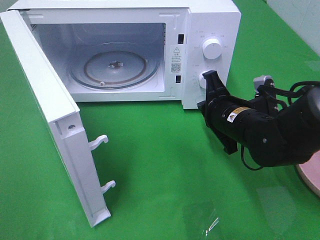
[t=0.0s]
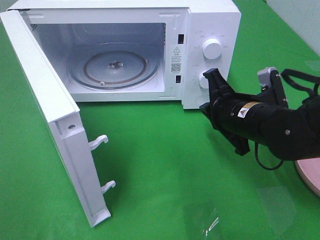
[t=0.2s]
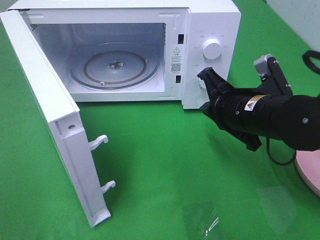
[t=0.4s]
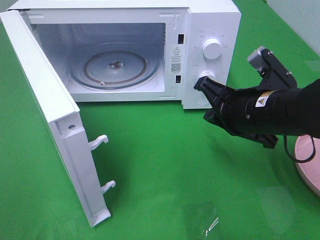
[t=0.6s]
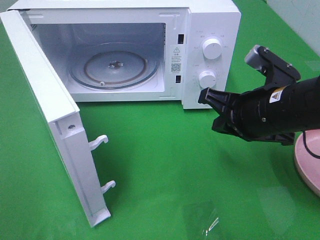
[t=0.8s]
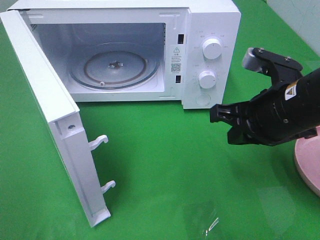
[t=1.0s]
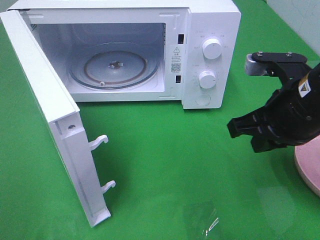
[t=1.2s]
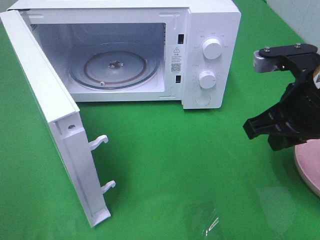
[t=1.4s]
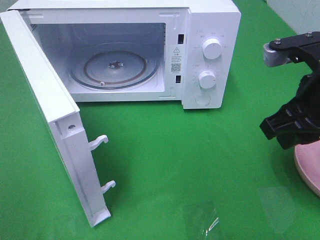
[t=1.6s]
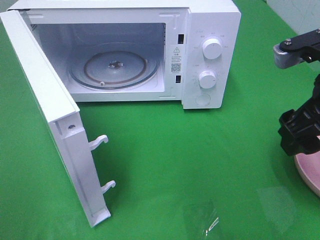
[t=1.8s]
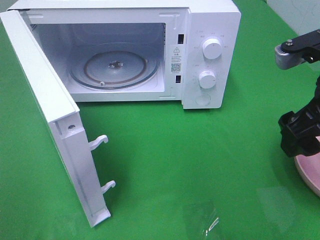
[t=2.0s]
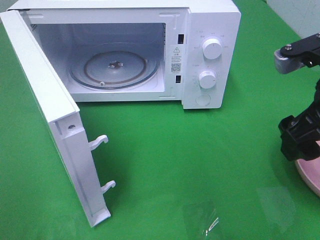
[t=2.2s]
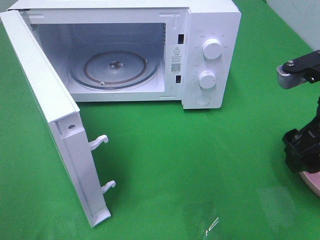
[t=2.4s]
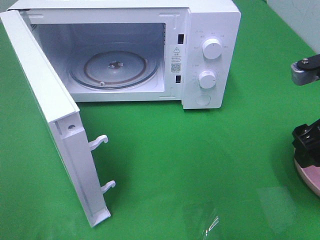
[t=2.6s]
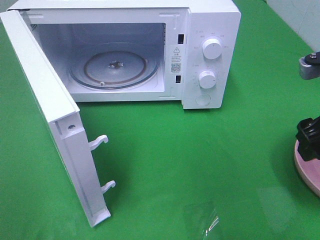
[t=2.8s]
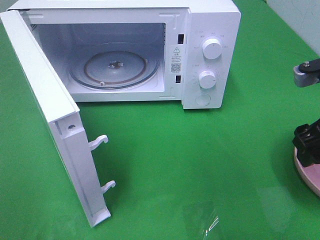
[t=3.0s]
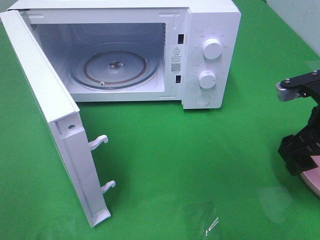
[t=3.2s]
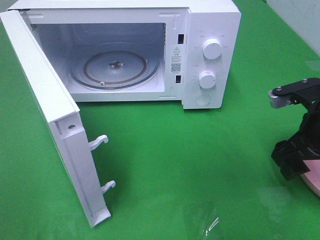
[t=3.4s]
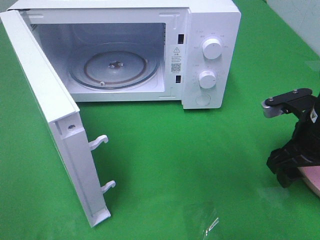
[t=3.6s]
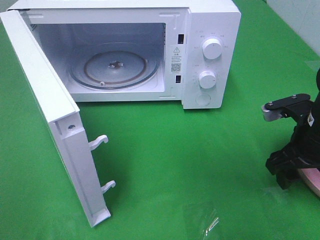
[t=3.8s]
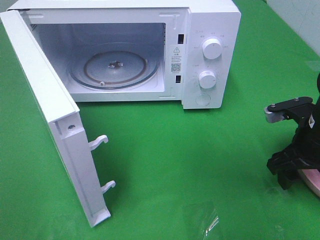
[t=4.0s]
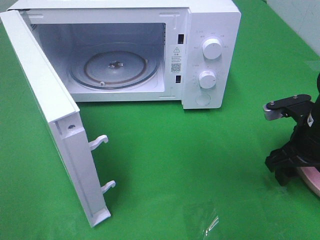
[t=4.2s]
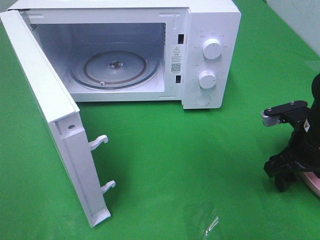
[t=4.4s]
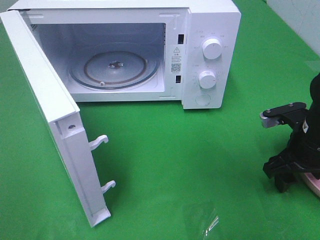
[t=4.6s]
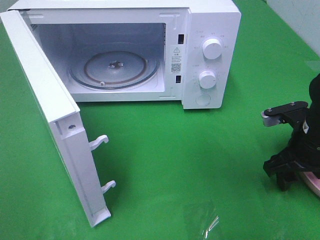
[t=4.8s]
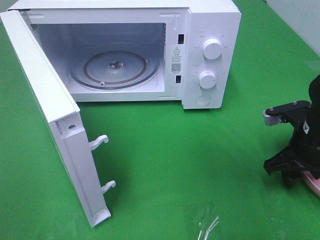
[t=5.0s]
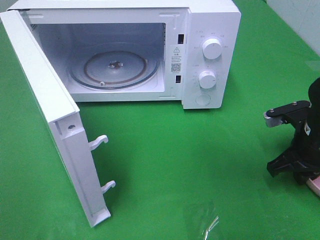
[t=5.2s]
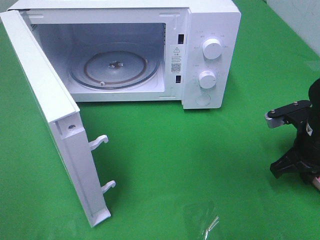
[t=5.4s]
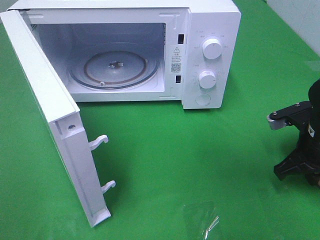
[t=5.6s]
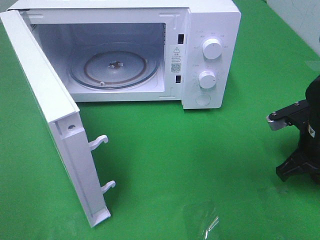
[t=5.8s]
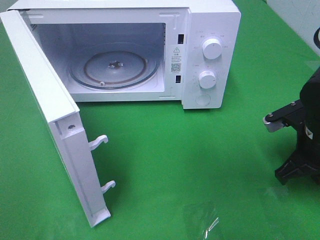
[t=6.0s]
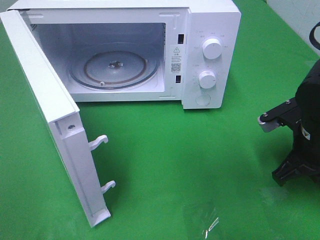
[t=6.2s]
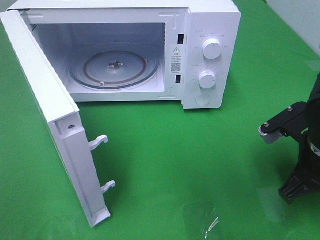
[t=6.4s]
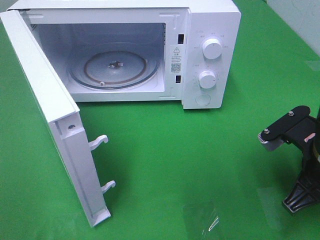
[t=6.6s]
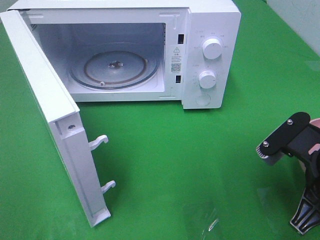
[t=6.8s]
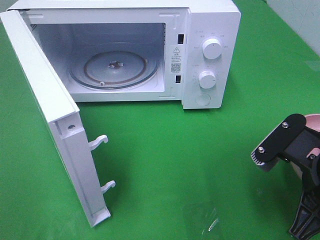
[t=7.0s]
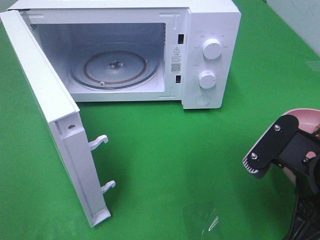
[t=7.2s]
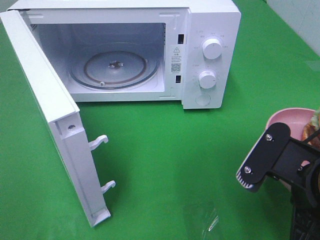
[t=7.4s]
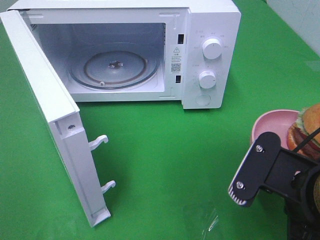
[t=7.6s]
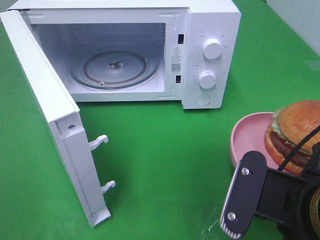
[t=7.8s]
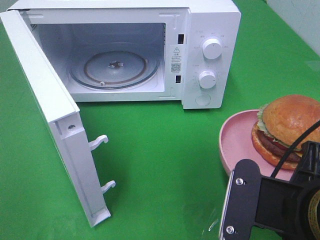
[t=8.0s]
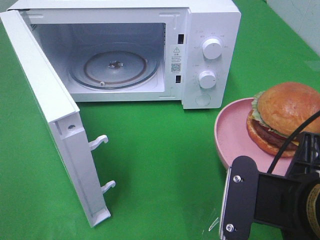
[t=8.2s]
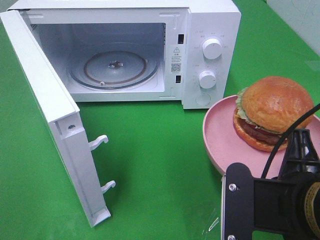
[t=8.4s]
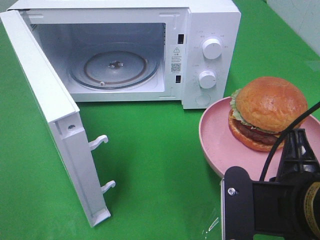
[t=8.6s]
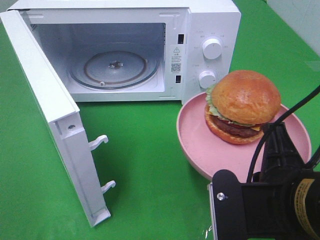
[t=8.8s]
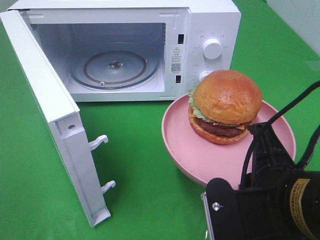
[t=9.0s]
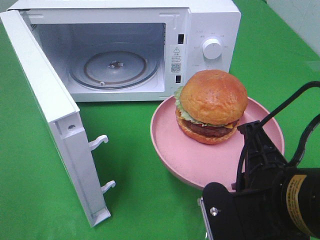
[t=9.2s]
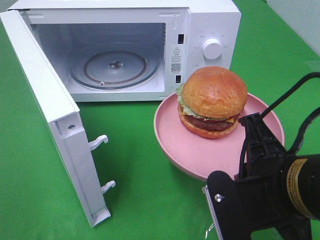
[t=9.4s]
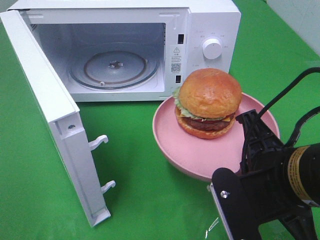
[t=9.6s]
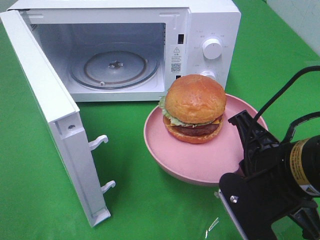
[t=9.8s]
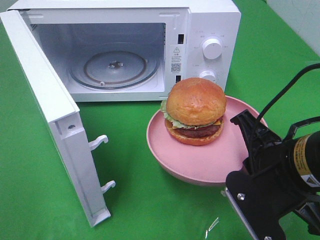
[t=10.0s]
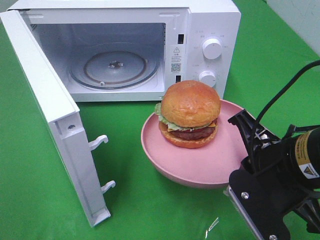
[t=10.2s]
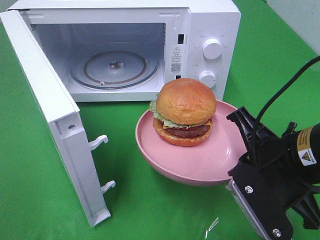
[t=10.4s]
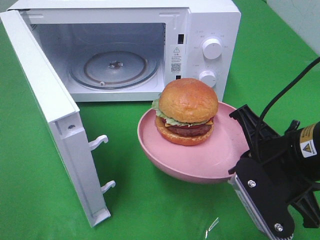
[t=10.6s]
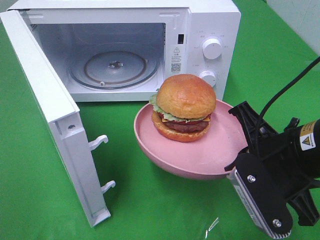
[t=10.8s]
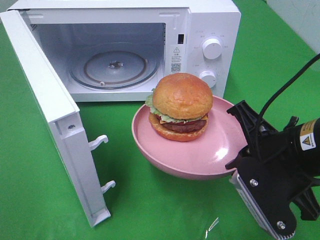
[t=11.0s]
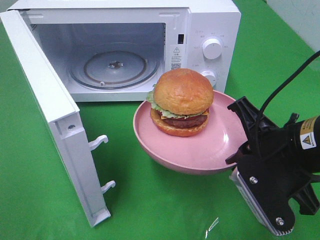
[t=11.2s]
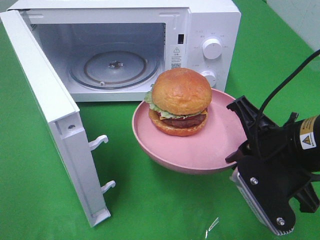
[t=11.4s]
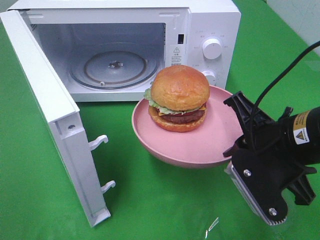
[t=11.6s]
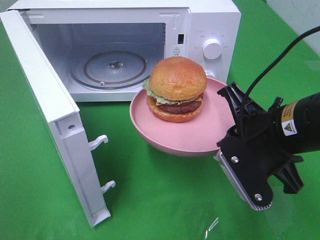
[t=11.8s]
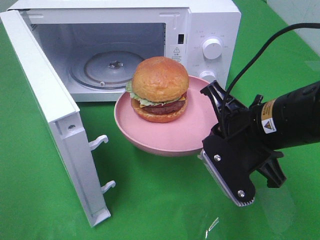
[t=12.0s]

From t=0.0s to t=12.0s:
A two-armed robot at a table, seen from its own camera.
Task of the whole recording: Heat the burger.
Step, from t=0.0s to t=5.6s: Right hand: grab the plate with the hamburger.
From t=0.0s to t=1.6s: The right gripper travels upward, backward and to the right by approximately 15 cm, and opens its fingers.
From t=1.6s to t=3.0s: The right gripper heads to the right, covering about 5 cm, and opens its fingers.
From t=3.0s to t=4.4s: The right gripper heads downward, covering roughly 10 cm.
From t=4.4s to t=6.0s: The right gripper closes its fingers.
From t=6.0s to t=7.6s: The right gripper is displaced backward, to the left and upward by some 20 cm.
From t=9.0s to t=10.4s: The right gripper is displaced forward by about 5 cm.

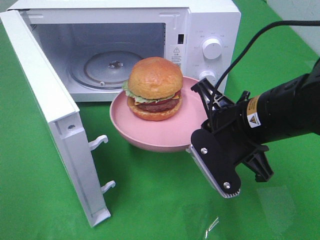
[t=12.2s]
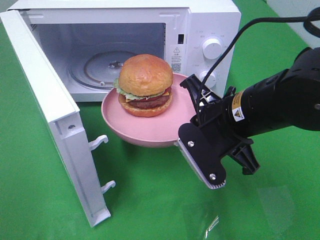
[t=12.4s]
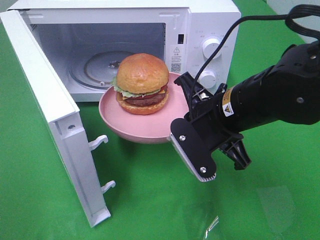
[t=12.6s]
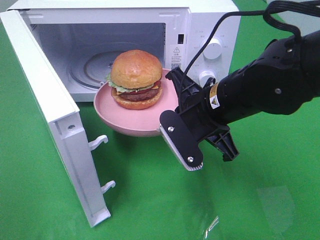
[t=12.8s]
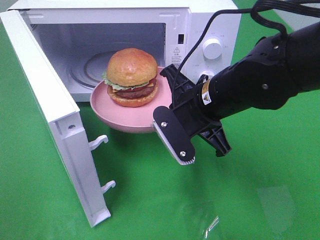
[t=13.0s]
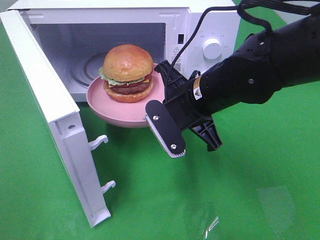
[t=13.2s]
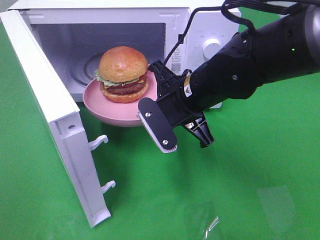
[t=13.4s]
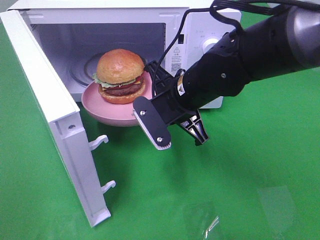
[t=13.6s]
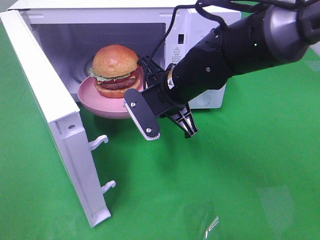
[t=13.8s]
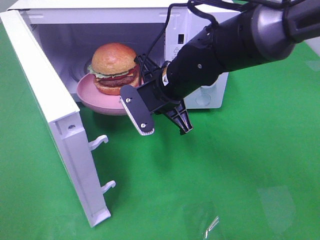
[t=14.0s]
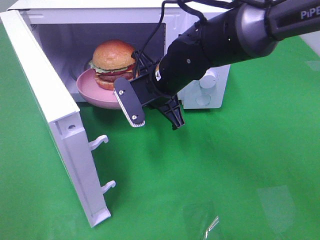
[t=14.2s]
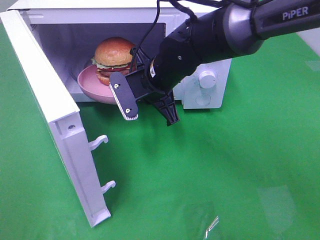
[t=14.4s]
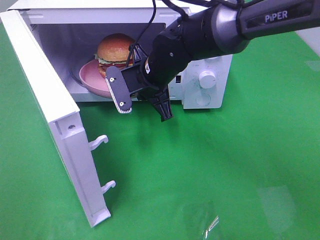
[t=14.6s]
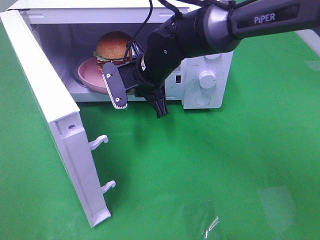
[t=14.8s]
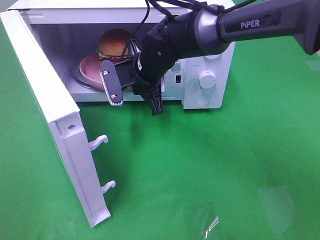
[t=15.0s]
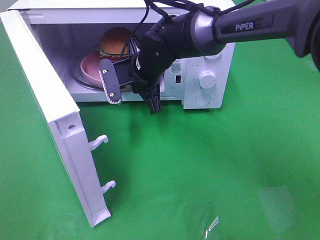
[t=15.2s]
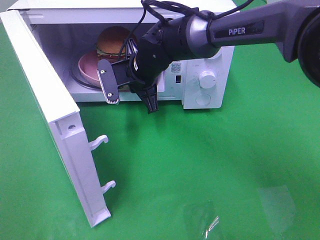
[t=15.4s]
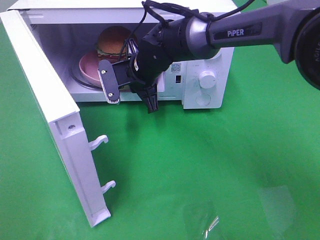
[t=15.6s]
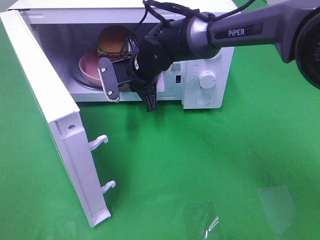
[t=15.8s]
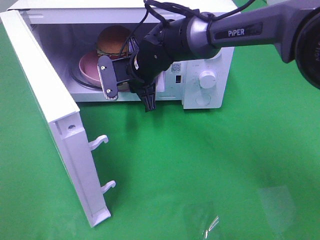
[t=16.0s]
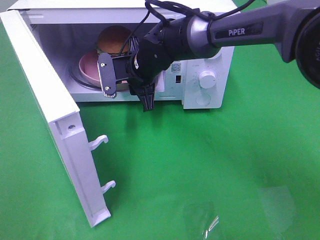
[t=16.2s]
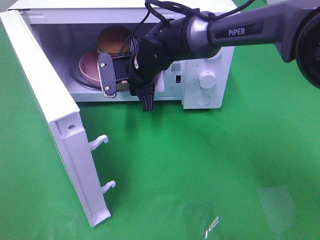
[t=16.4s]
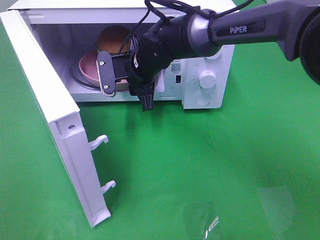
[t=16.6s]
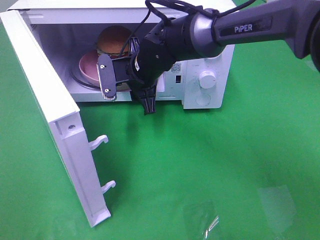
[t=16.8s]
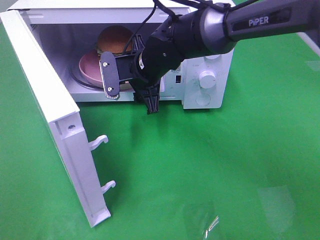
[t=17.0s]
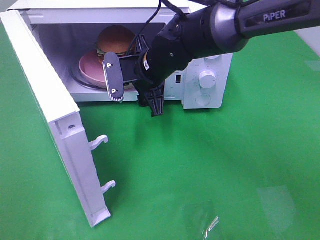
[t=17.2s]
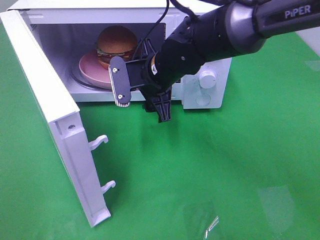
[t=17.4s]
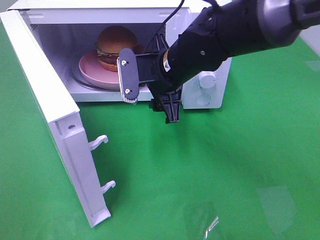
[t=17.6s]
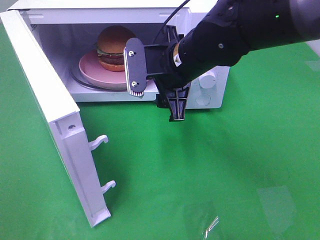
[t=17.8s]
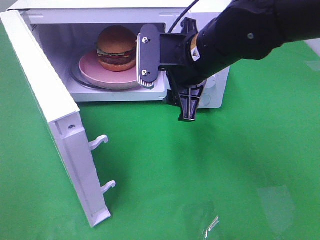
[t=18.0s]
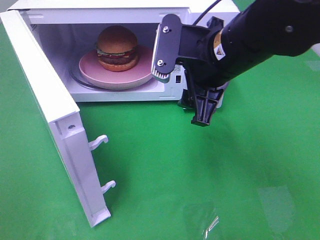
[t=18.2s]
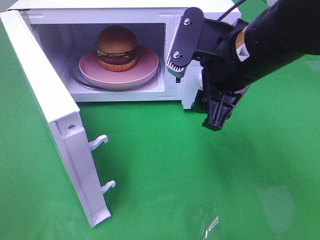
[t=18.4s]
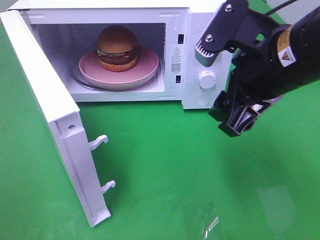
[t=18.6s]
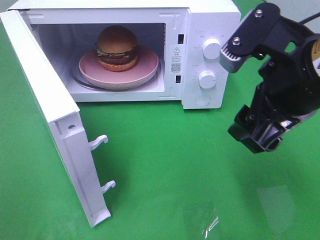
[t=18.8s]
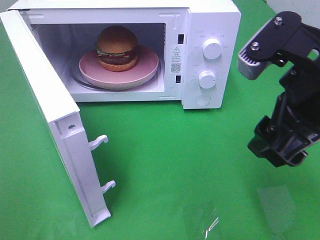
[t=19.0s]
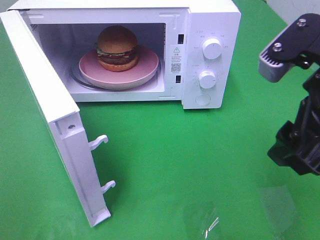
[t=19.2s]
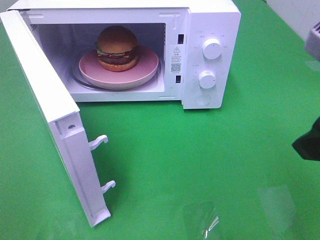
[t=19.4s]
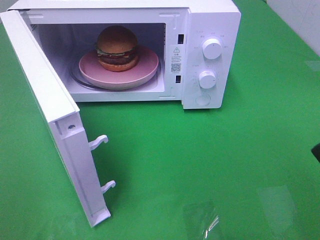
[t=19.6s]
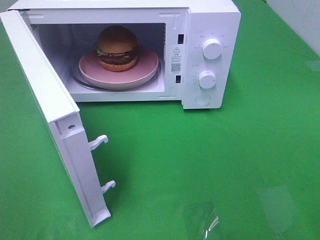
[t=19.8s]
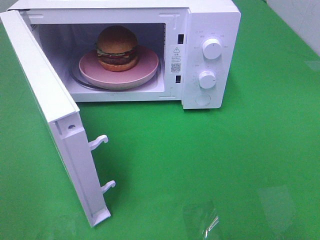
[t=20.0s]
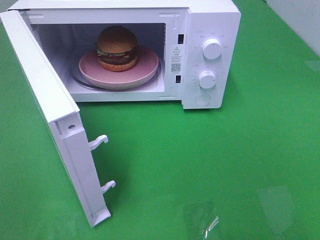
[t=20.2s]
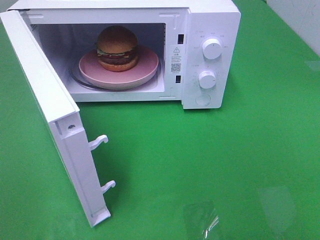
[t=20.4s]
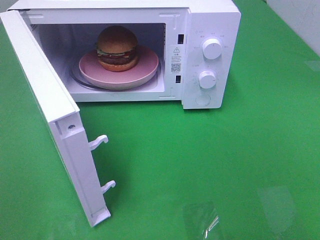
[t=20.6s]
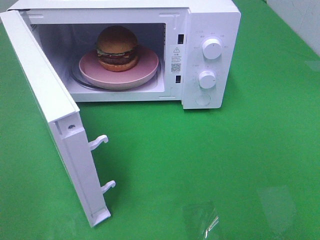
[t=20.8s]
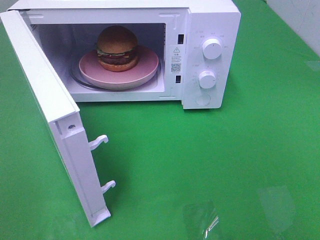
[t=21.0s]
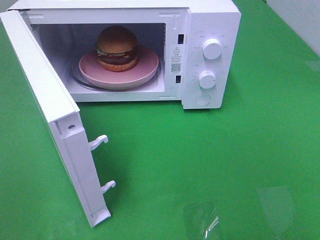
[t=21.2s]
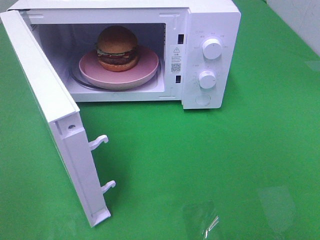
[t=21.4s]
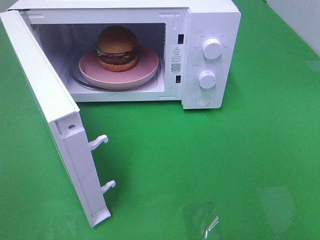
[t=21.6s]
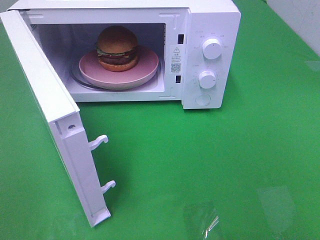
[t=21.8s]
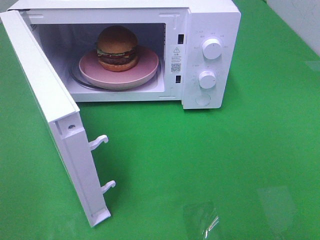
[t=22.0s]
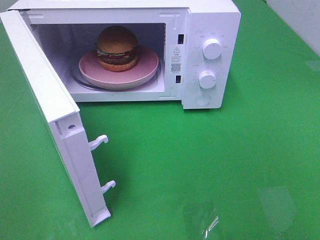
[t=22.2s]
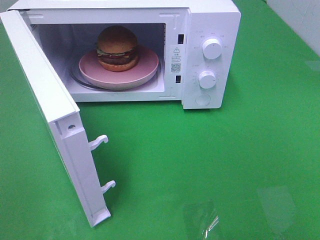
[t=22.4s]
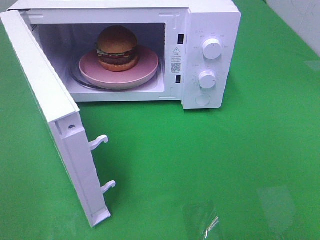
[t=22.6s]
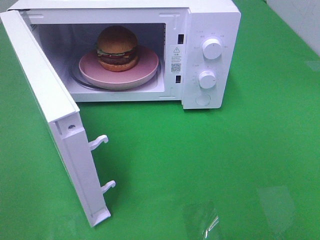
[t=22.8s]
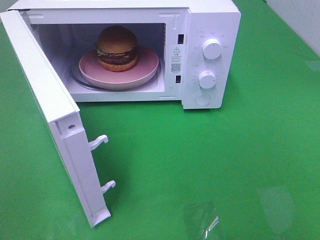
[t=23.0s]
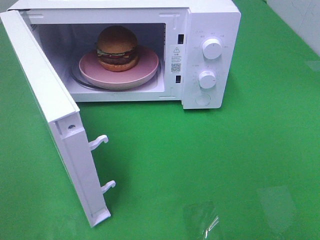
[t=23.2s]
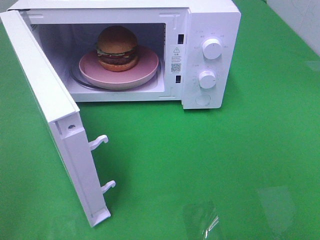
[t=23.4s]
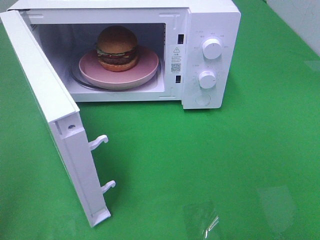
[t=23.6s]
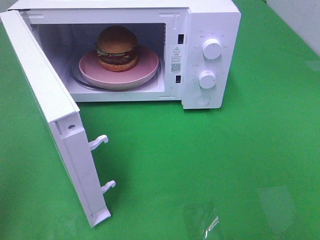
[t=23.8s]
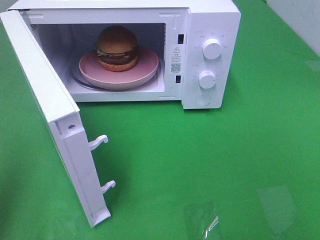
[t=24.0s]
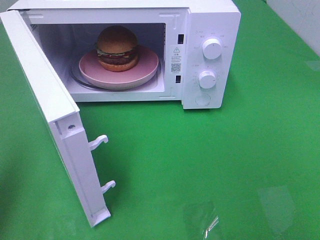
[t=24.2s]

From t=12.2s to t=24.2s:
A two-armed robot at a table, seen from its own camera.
Task of the whole recording: Heat the burger.
Step, from t=12.2s to t=16.6s: Right hand: place the plate in the microwave.
From t=12.2s to t=13.8s: The right gripper goes about 15 cm forward and to the left.
From t=13.8s to t=15.2s: The right gripper shifts some 10 cm forward and to the left.
From t=15.2s to t=16.6s: The right gripper opens.
From t=16.6s to t=18.2s: The right gripper travels backward, to the right and upward by about 20 cm.
From t=18.2s to t=19.8s: The right gripper travels backward and to the right by about 25 cm.
From t=21.2s to t=22.6s: The two grippers keep their place.
From t=22.6s to t=24.2s: The left gripper heads forward, covering about 15 cm, and closes up.
